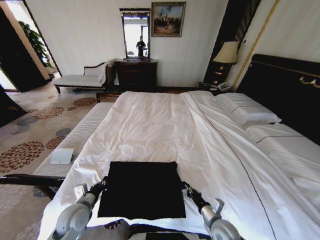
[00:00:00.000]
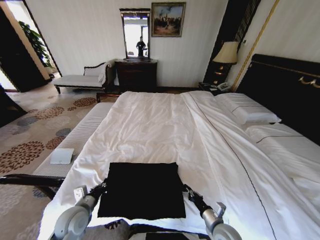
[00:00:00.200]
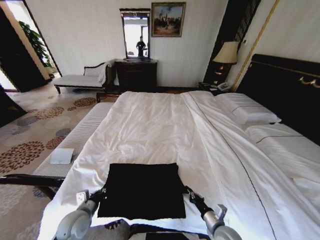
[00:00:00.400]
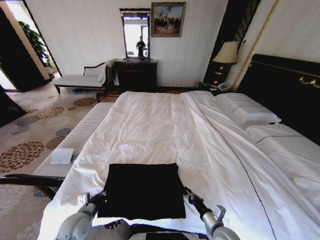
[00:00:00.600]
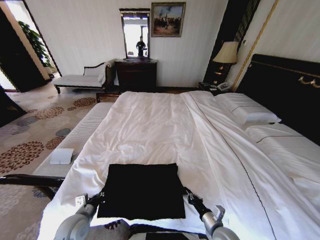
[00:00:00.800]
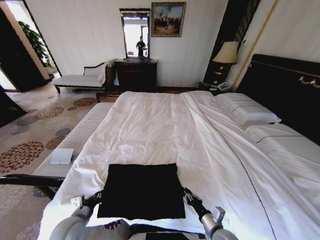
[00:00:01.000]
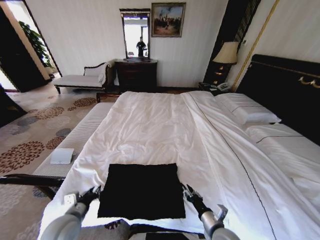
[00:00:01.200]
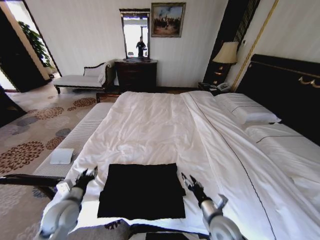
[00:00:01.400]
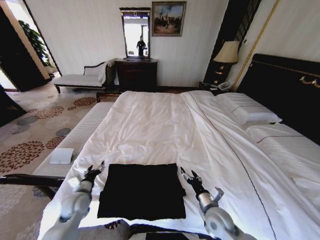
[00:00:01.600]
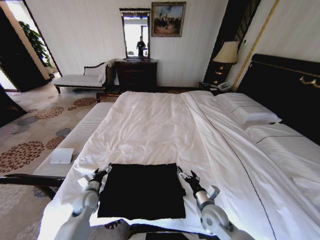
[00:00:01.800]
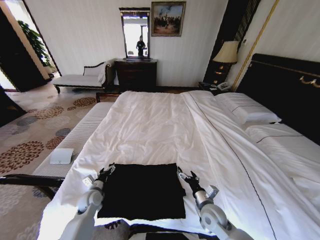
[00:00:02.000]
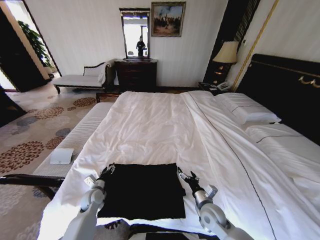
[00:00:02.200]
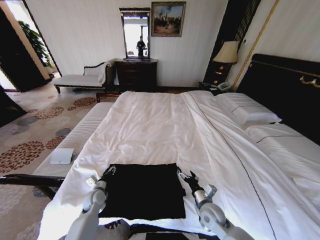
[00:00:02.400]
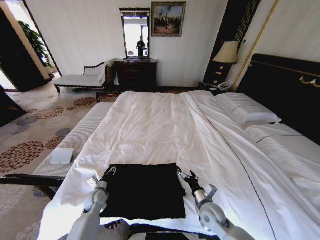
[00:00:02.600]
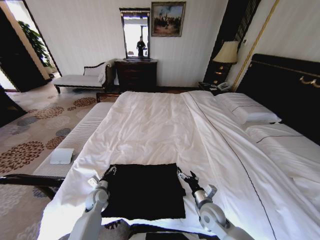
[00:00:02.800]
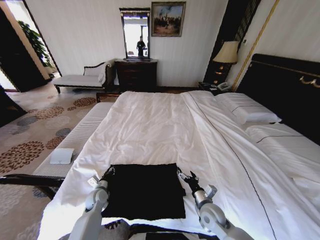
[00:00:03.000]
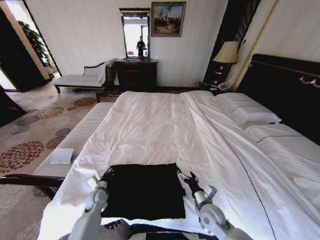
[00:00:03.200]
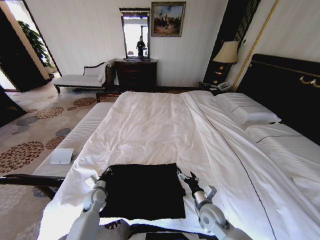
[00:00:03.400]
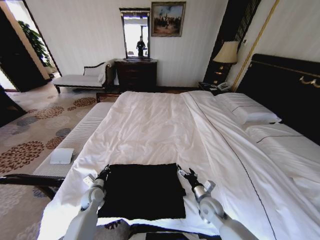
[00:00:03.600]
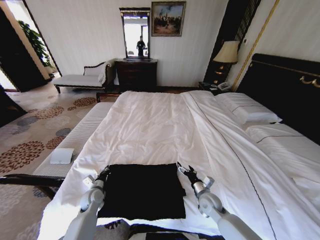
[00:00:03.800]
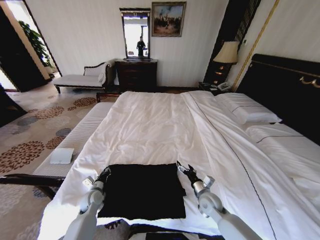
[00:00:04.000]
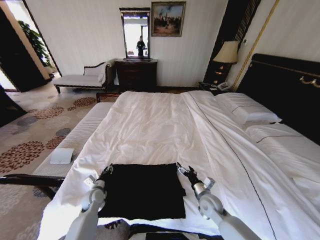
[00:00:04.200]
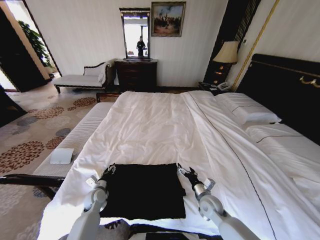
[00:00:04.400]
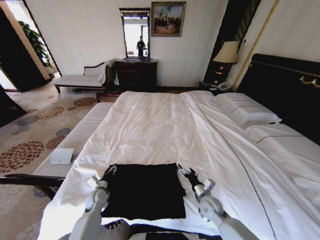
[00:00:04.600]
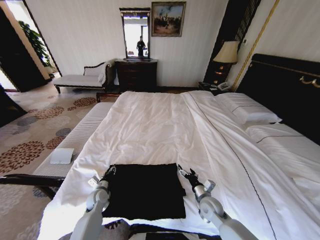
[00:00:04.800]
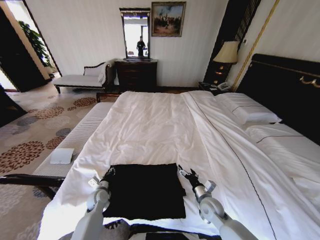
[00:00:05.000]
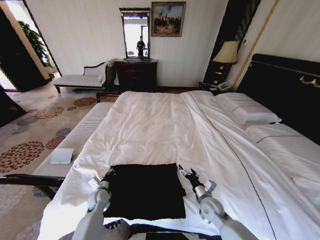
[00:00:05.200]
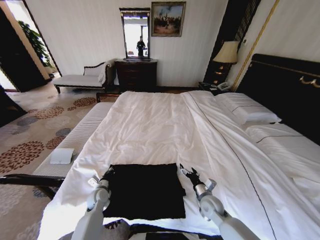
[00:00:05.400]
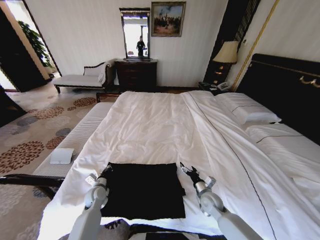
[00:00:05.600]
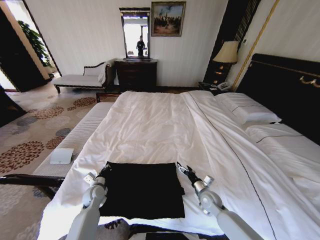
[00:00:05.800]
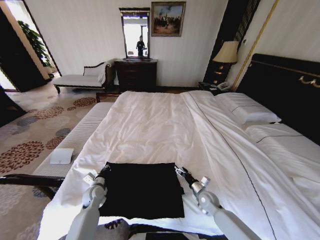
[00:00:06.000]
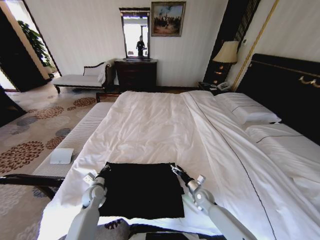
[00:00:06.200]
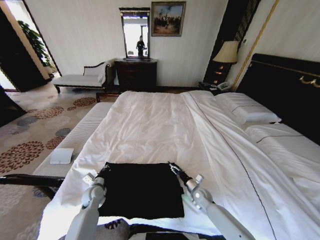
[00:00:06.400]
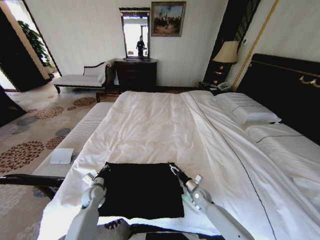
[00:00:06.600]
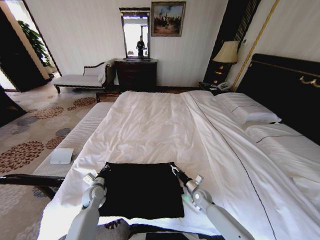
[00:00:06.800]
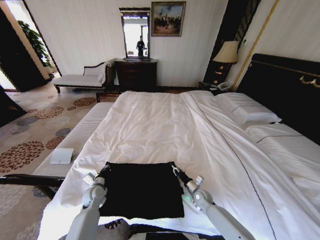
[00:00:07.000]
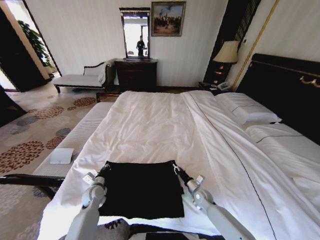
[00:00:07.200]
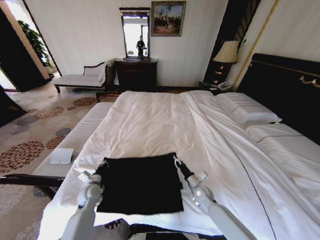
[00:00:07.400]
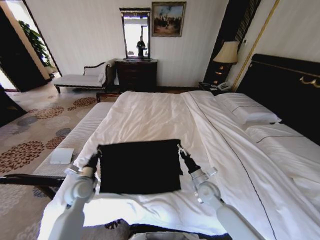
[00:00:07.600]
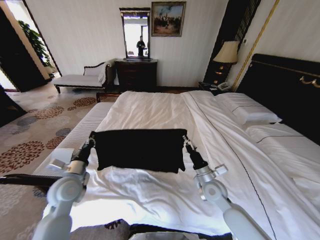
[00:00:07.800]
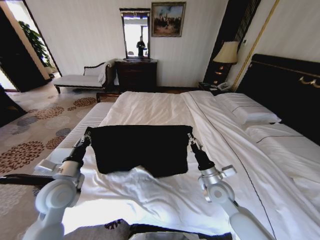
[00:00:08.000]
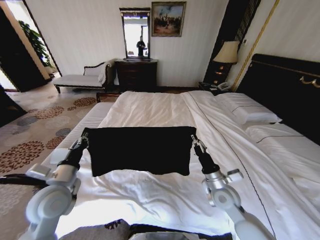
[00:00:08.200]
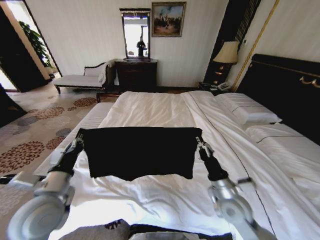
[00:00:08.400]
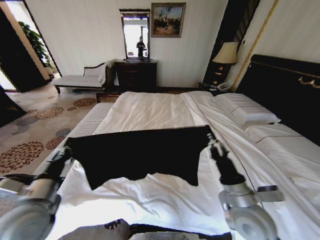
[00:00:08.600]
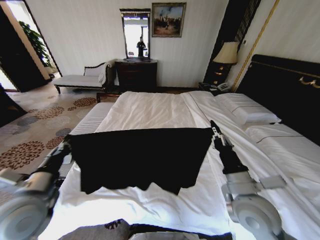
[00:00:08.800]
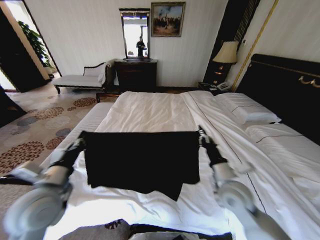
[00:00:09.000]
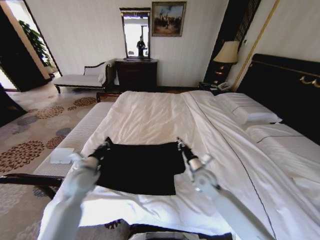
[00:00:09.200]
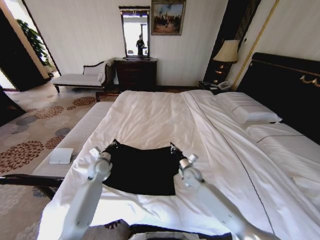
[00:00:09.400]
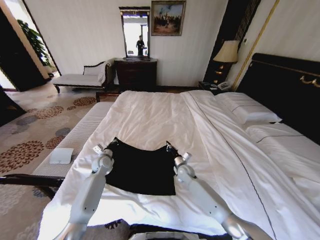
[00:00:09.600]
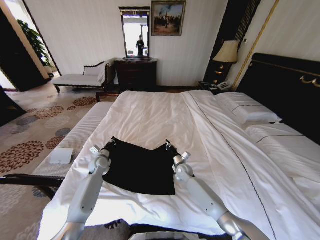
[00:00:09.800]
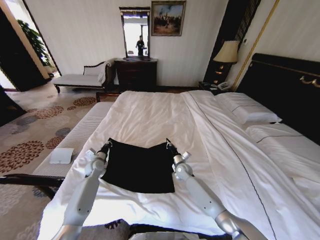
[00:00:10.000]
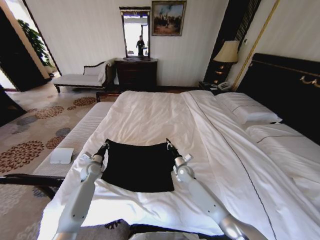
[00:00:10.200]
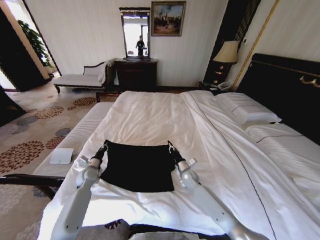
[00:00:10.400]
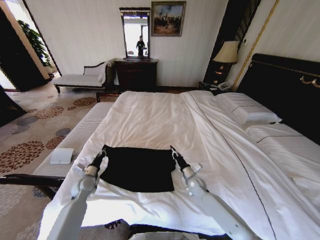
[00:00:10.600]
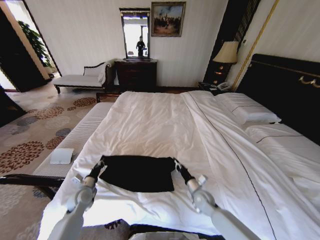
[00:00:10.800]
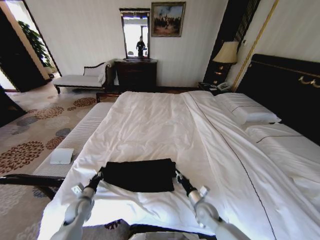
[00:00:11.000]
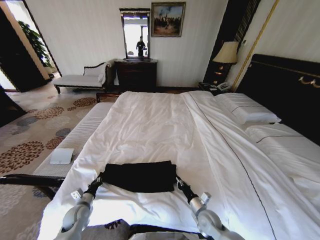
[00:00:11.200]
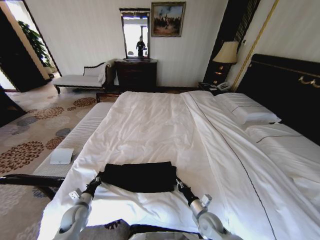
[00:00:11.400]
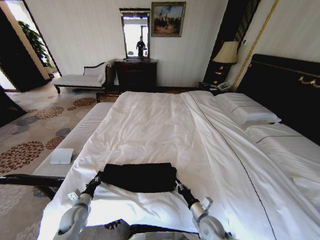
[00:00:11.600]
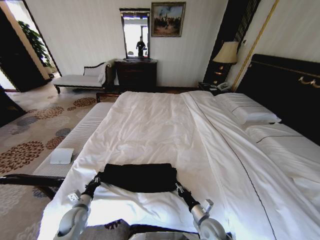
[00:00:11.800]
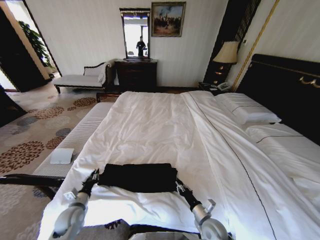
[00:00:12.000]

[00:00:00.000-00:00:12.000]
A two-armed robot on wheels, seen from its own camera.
Task of the whole recording: Fold the clothes on the bed.
00:00:00.000 to 00:00:01.600: The right gripper moves about 5 cm, and opens its fingers; the left gripper travels forward by roughly 5 cm, and opens its fingers.
00:00:01.600 to 00:00:03.000: The left gripper moves downward, approximately 10 cm, and closes its fingers.
00:00:03.000 to 00:00:04.400: The grippers move only a little.
00:00:04.400 to 00:00:06.000: The left gripper closes up, while the right gripper shifts approximately 5 cm downward.
00:00:06.000 to 00:00:07.600: The grippers both shift upward by about 10 cm. The right gripper closes its fingers.
00:00:07.600 to 00:00:09.000: The right gripper heads upward, covering some 15 cm. Meanwhile the left gripper is displaced upward and backward by roughly 20 cm.
00:00:09.000 to 00:00:10.400: The grippers both shift downward and forward by about 30 cm.
00:00:10.400 to 00:00:12.000: The grippers both shift backward by approximately 20 cm.

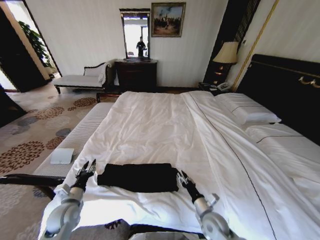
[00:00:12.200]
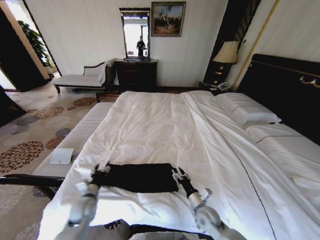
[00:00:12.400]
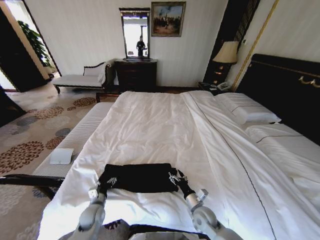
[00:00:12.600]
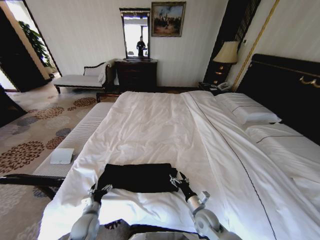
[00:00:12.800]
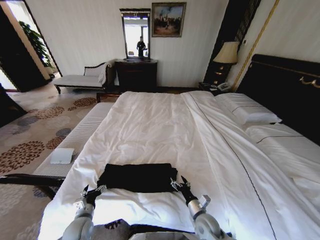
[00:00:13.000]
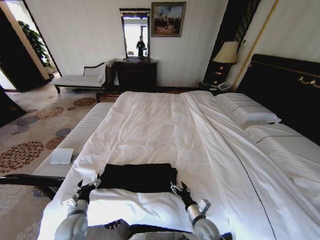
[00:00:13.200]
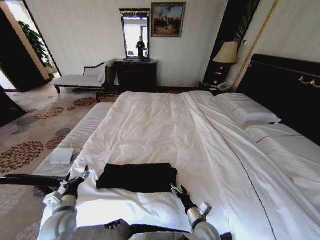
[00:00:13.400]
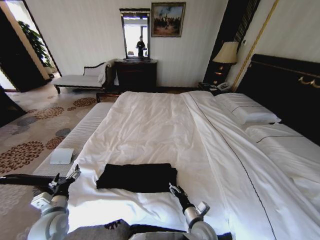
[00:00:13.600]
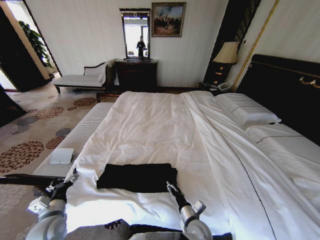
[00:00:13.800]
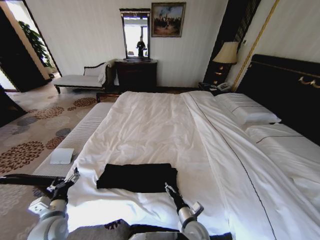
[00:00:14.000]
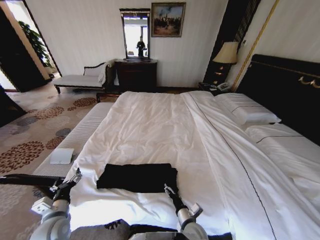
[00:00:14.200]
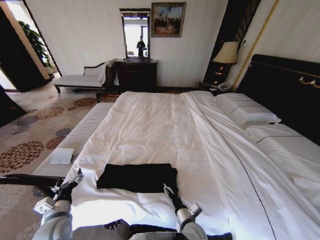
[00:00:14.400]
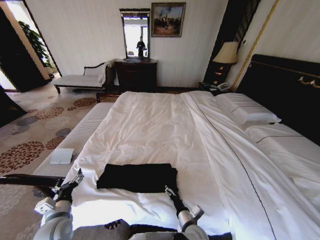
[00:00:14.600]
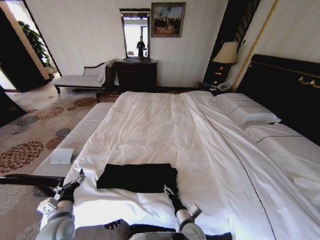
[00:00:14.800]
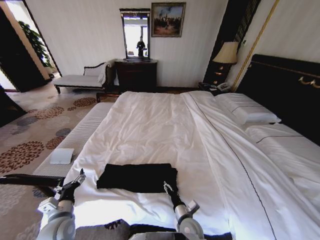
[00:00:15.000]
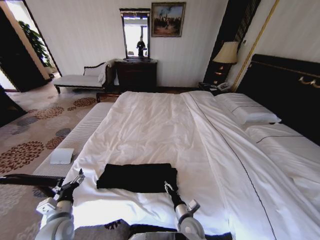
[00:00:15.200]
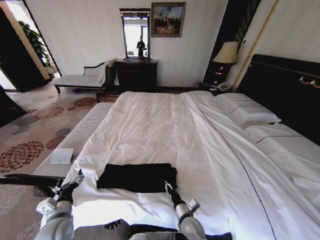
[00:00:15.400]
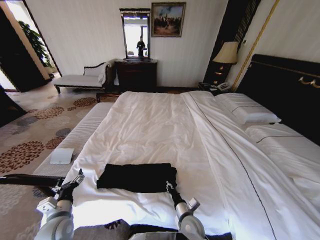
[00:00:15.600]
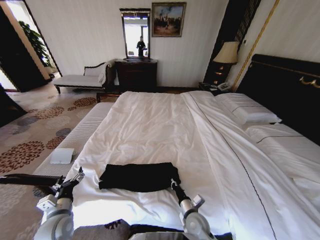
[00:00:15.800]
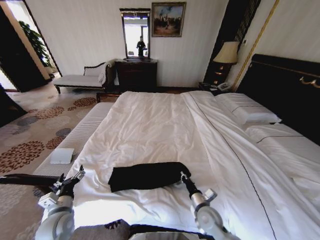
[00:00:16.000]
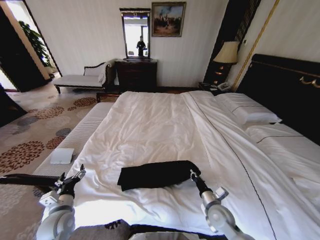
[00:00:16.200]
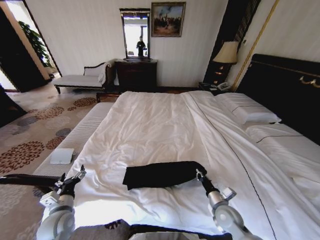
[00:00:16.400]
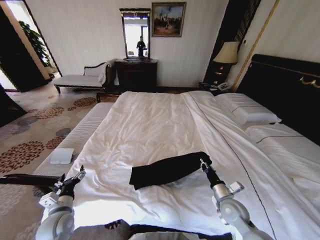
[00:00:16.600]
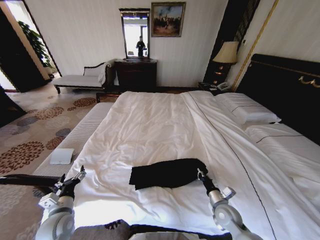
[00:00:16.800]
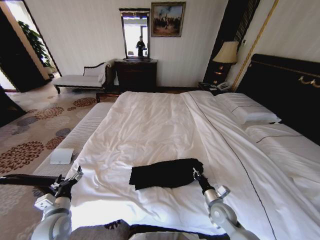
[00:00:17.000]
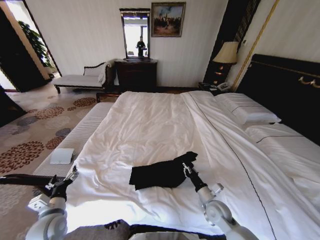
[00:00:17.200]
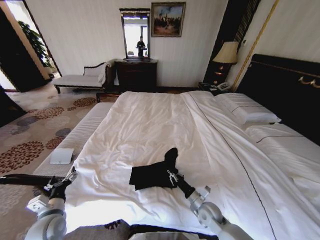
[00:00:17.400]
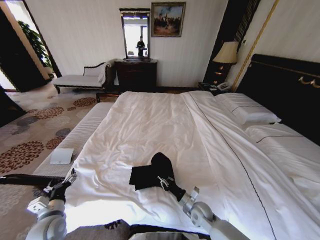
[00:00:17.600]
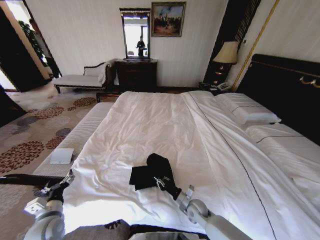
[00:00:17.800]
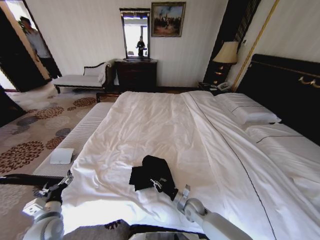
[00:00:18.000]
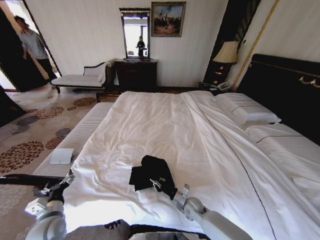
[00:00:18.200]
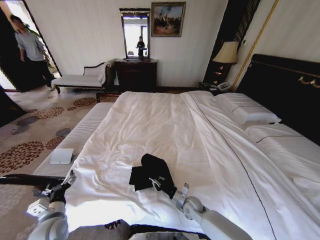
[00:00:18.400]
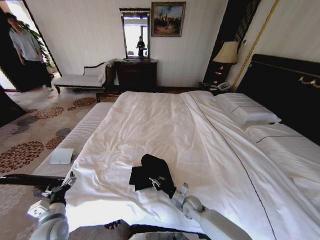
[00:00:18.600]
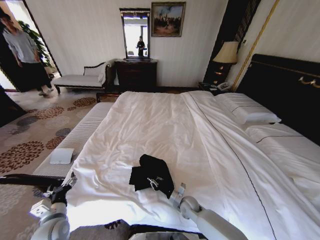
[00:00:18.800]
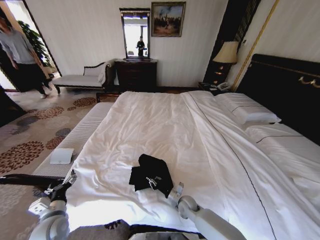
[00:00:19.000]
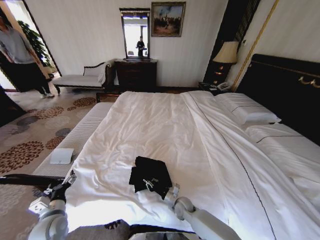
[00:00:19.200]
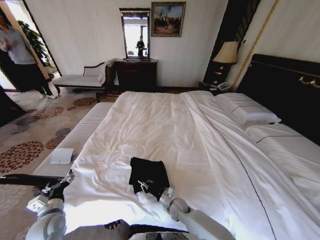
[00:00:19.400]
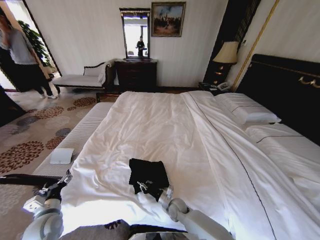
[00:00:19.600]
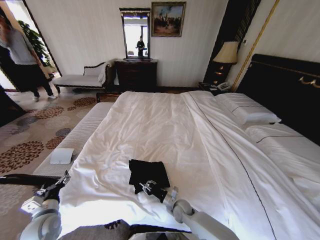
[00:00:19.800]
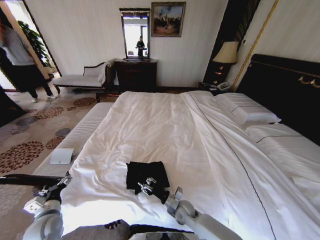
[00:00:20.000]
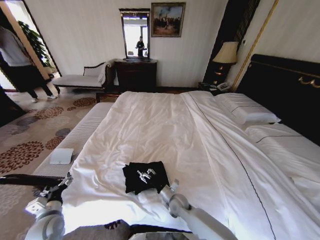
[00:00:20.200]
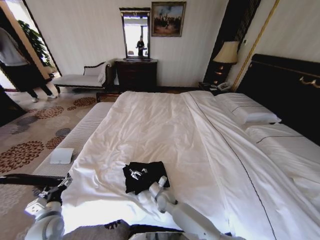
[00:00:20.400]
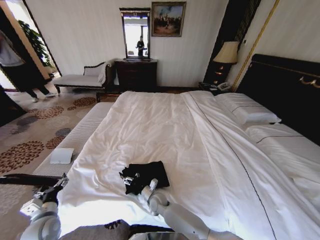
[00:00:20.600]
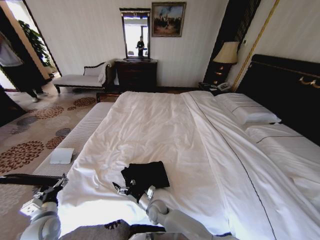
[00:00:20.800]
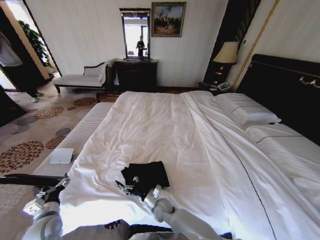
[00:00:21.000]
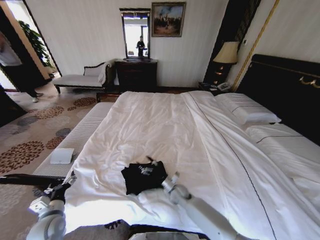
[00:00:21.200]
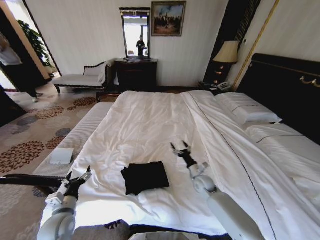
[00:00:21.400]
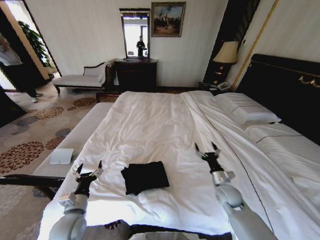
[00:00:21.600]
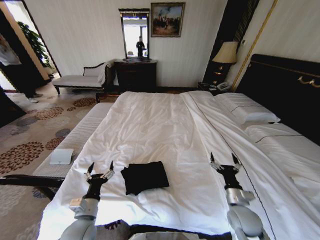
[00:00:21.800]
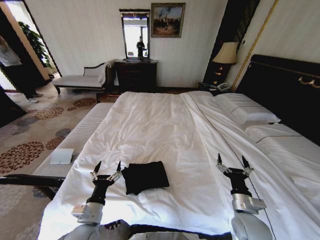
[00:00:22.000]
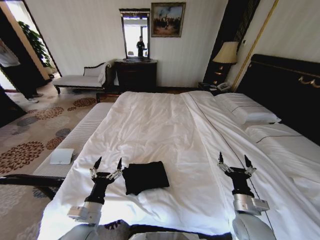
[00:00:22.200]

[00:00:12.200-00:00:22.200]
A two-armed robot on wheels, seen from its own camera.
Task of the whole recording: Fold the clothes on the bed.
00:00:12.200 to 00:00:13.600: The left gripper reaches approximately 10 cm downward, then returns, and opens up. The right gripper goes approximately 5 cm to the left, and opens its fingers.
00:00:13.600 to 00:00:15.000: The right gripper shifts by roughly 5 cm.
00:00:15.000 to 00:00:16.400: The right gripper shifts approximately 15 cm to the right, and closes its fingers.
00:00:16.400 to 00:00:18.000: The right gripper heads to the left, downward and forward, covering some 15 cm.
00:00:18.000 to 00:00:19.400: The right gripper goes some 5 cm to the left.
00:00:19.400 to 00:00:20.800: The right gripper moves to the left, some 10 cm, and opens its fingers.
00:00:20.800 to 00:00:22.200: The left gripper heads to the right, covering approximately 20 cm; the right gripper goes about 35 cm to the right and upward.
